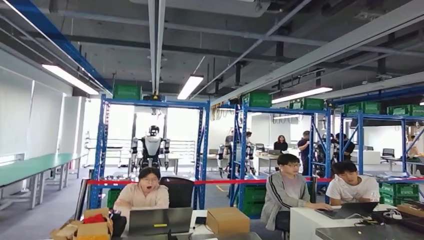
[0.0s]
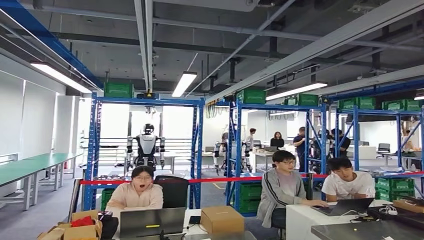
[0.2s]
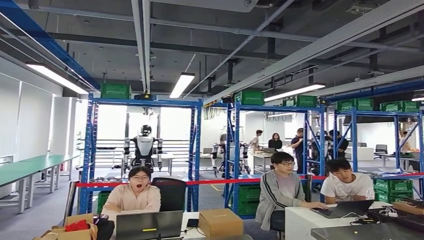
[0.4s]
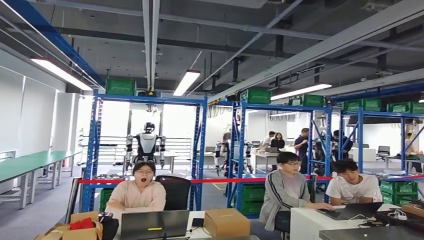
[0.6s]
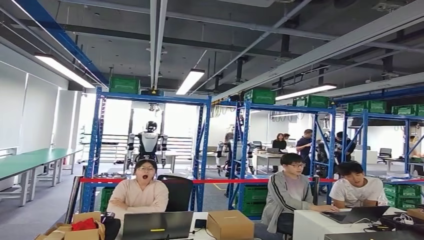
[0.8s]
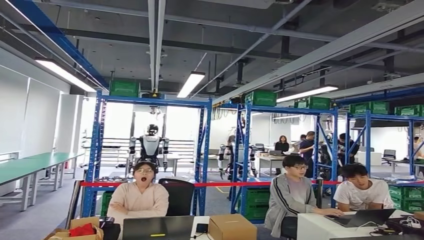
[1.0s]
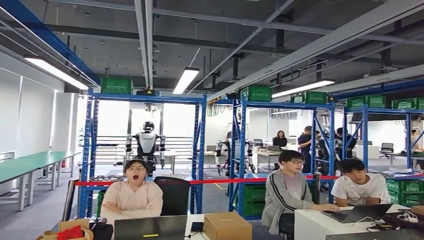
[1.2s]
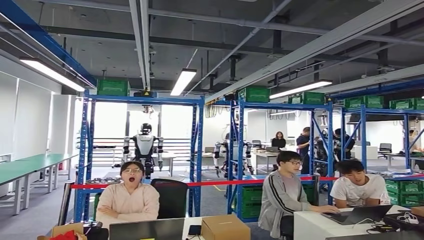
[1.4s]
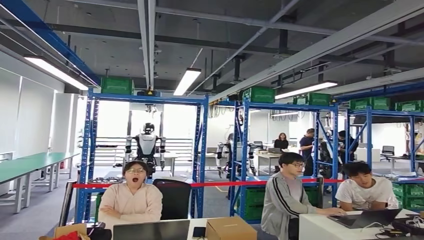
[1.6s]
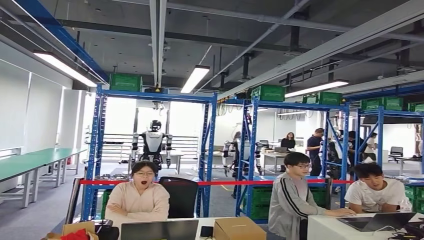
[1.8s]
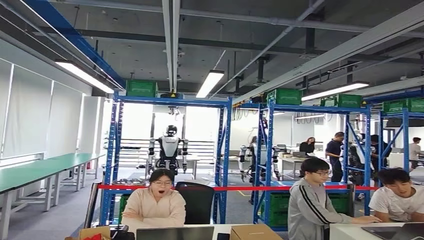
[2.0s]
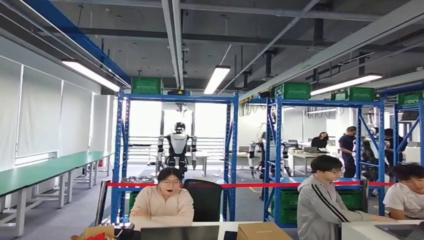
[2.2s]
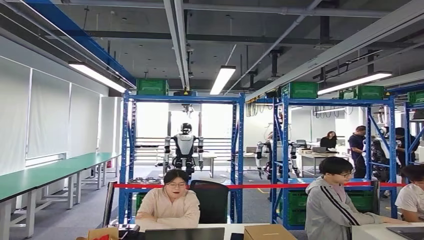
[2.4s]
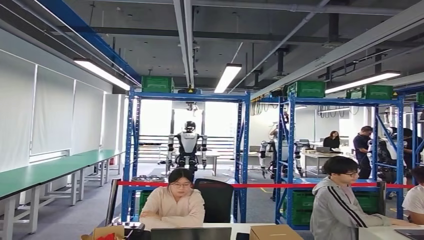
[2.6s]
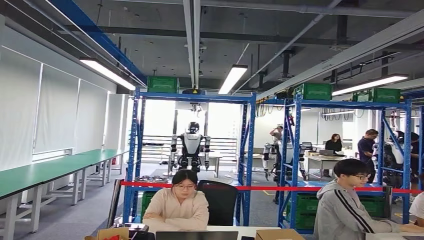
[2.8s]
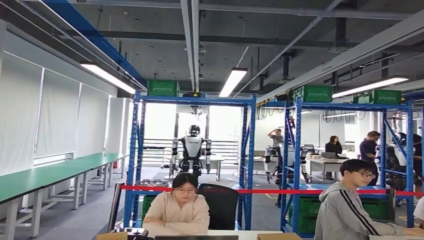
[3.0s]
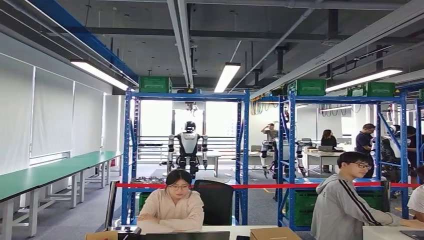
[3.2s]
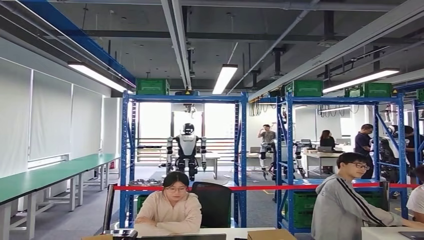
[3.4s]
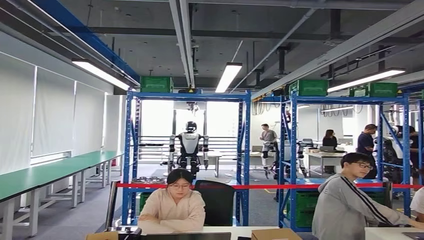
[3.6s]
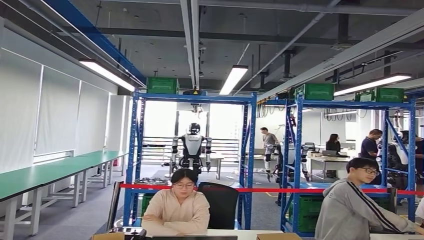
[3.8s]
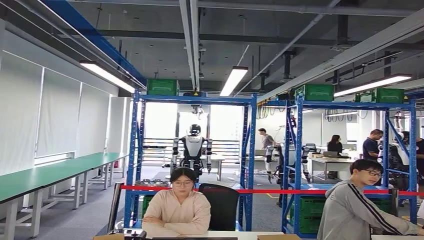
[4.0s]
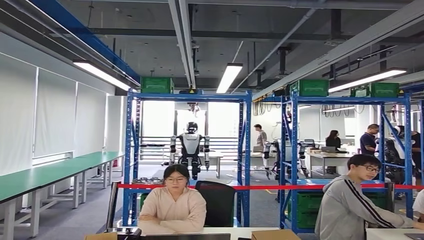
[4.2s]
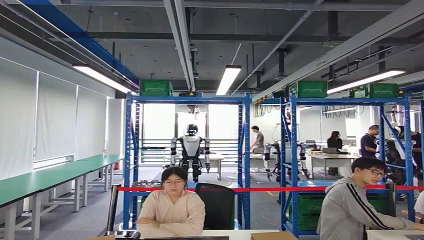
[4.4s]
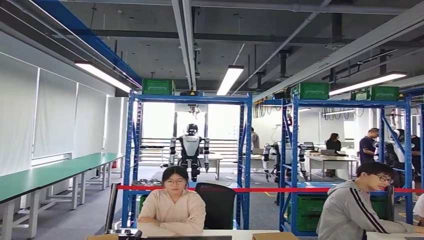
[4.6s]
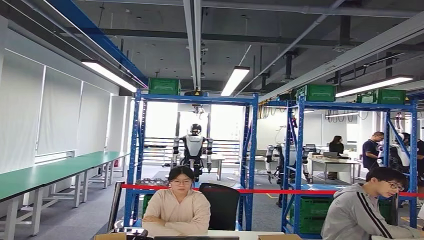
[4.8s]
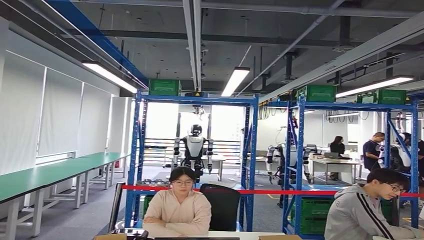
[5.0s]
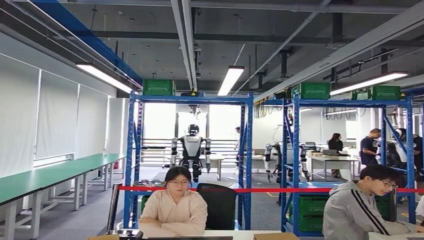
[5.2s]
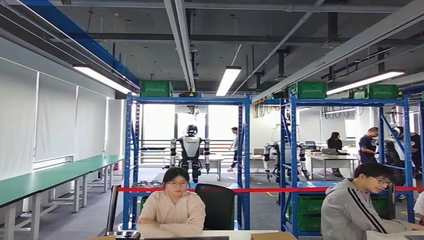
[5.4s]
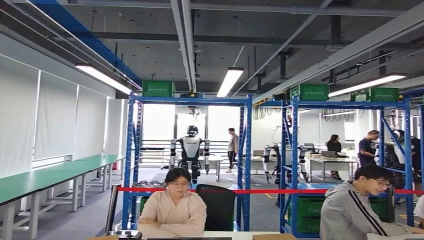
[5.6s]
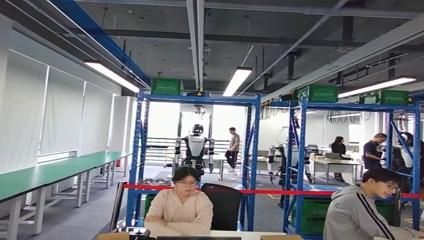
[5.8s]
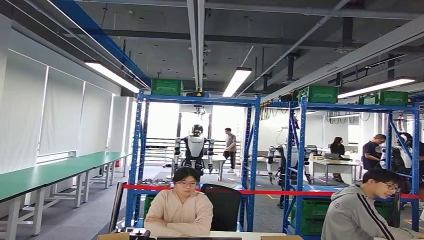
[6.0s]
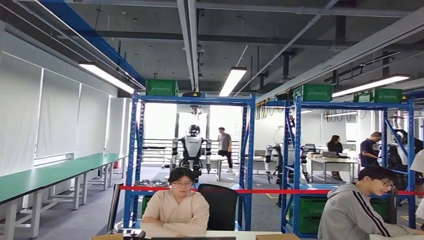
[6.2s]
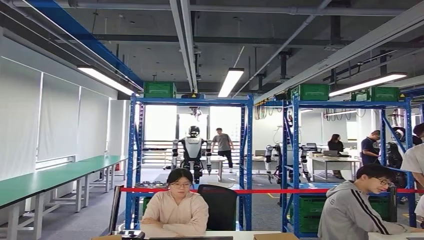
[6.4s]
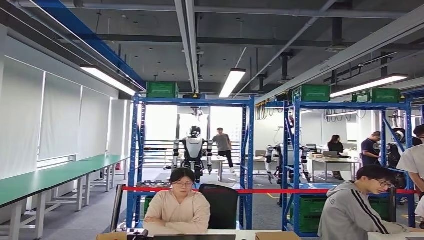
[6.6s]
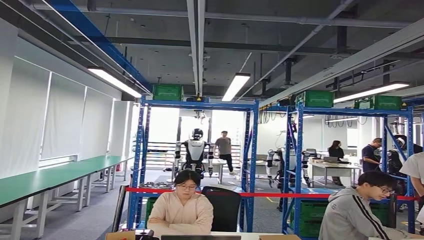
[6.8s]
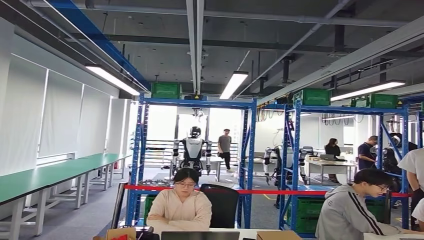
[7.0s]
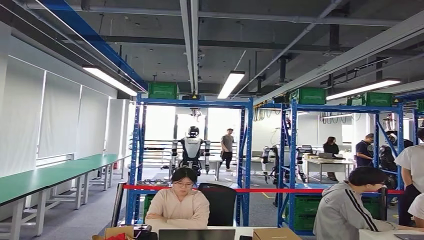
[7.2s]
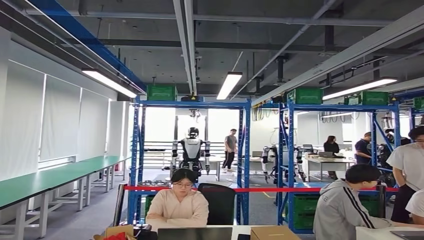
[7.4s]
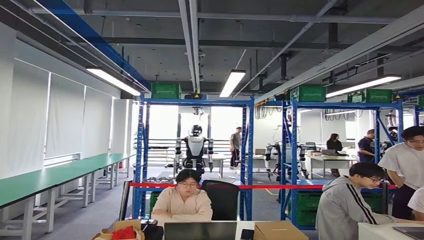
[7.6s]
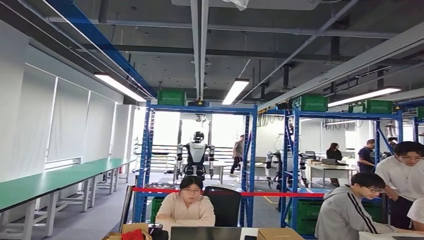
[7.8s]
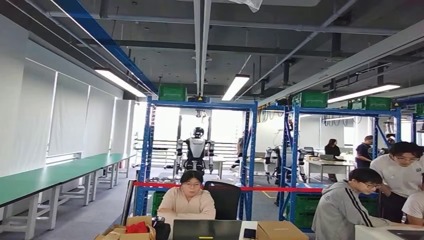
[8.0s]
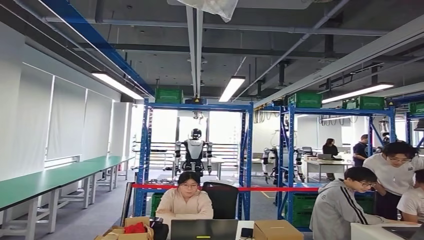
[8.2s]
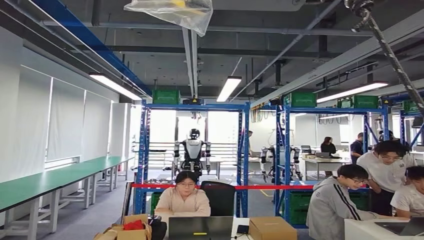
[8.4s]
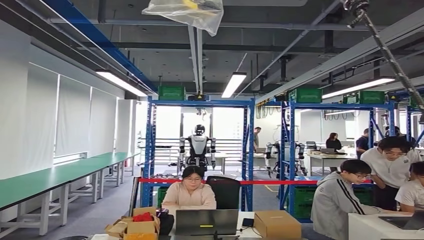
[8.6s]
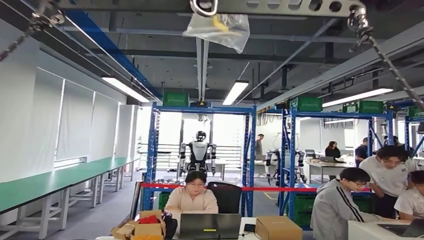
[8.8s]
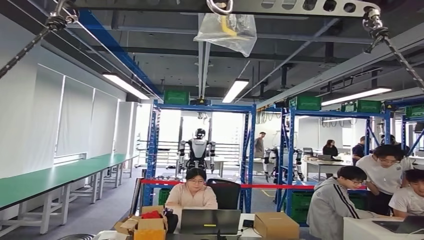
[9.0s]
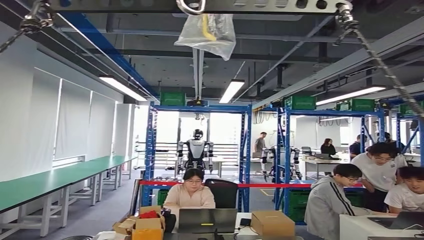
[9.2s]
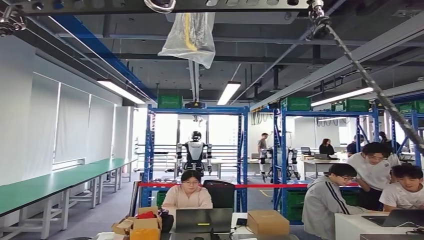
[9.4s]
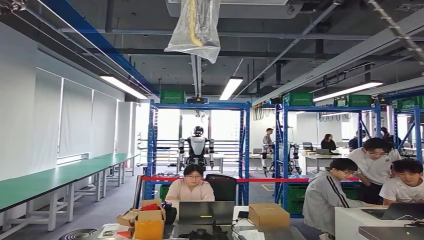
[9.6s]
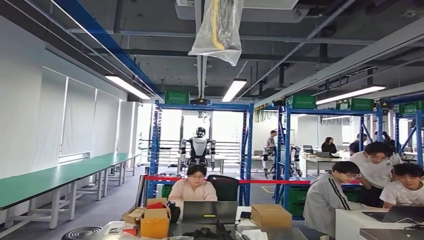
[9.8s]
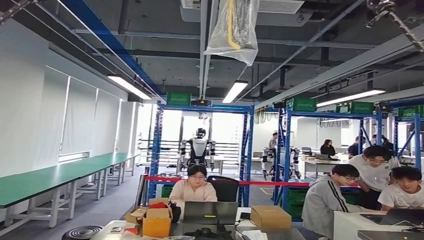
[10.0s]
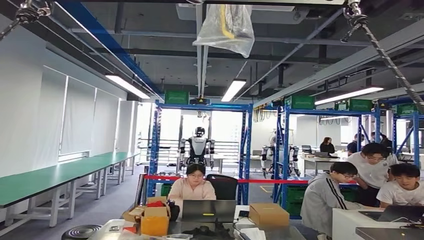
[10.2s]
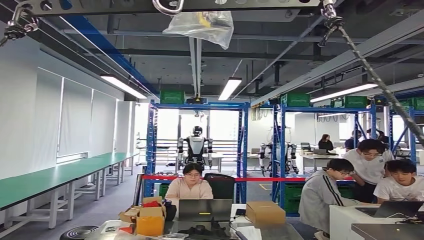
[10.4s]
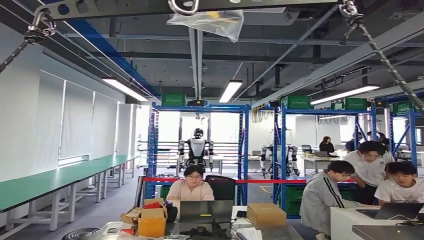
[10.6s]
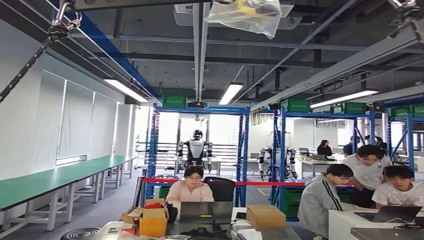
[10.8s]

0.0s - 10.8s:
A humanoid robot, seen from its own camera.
Step, 0.0s - 4.4s: Move the small parts to the workbench.
Step, 4.6s - 7.0s: Insert the small parts into the corresponding holes on the workbench.
Step, 7.2s - 10.8s: Move to the initial position of the workbench.
